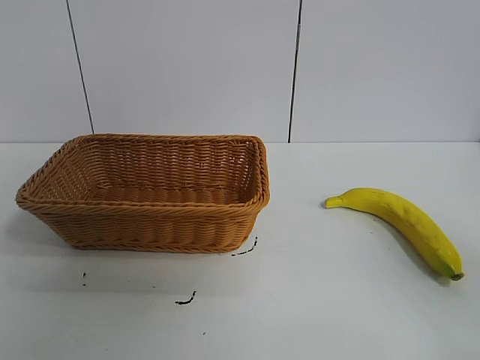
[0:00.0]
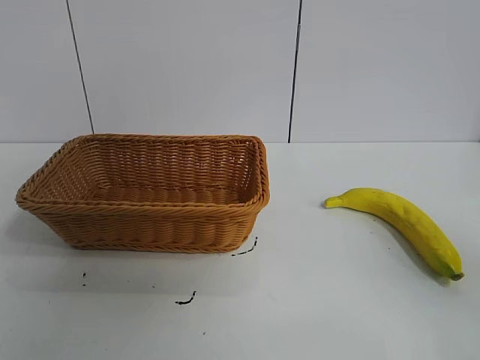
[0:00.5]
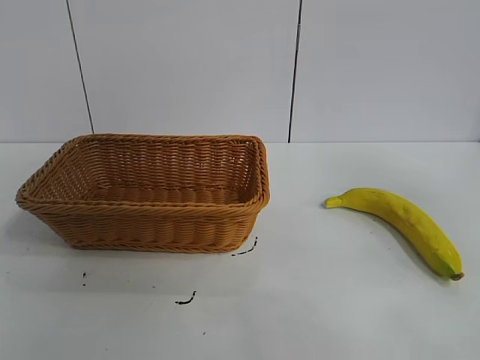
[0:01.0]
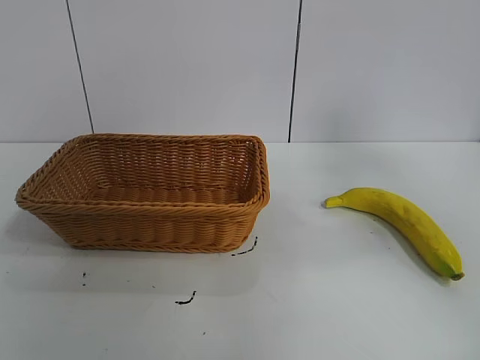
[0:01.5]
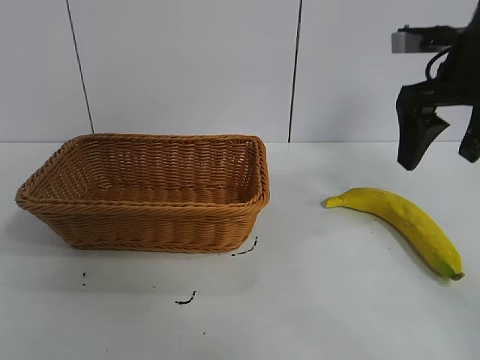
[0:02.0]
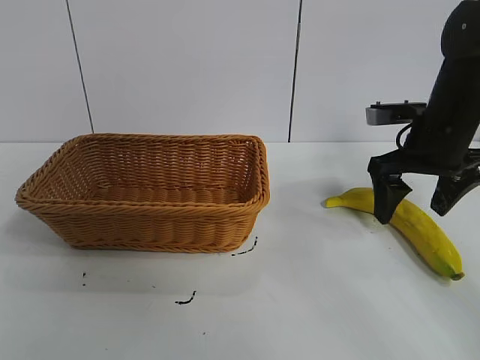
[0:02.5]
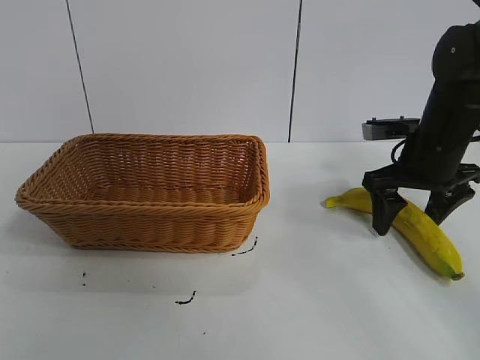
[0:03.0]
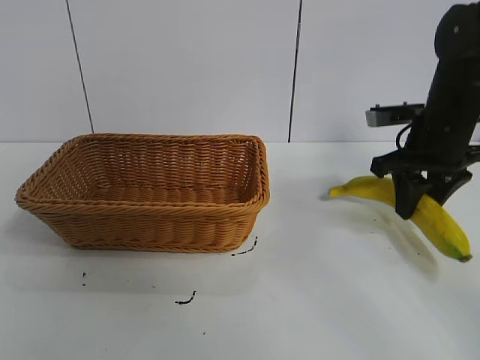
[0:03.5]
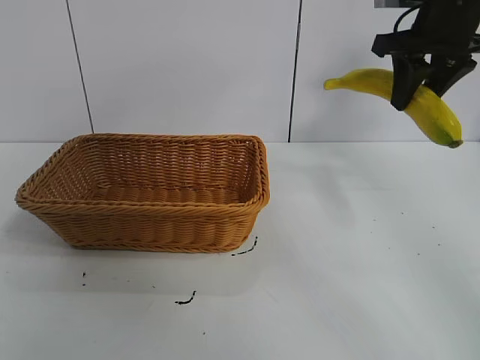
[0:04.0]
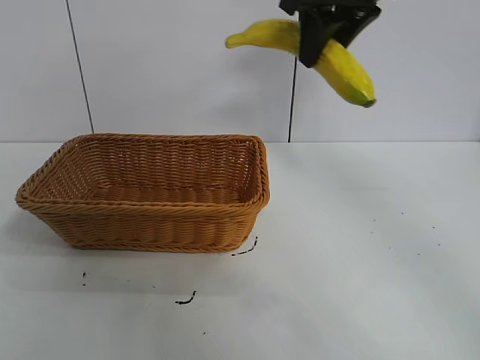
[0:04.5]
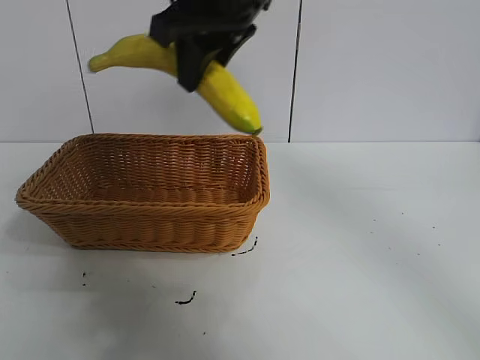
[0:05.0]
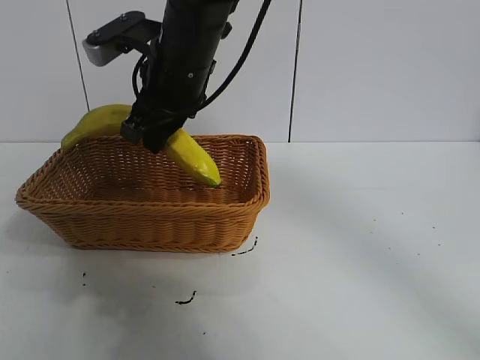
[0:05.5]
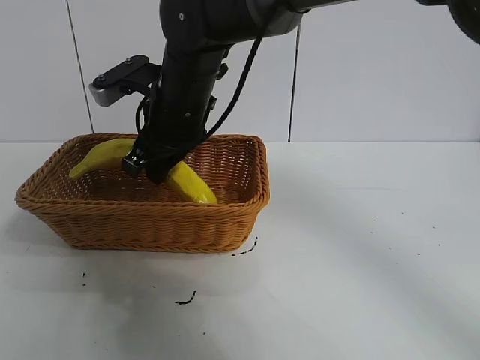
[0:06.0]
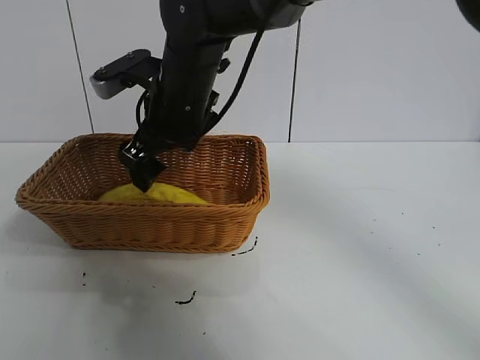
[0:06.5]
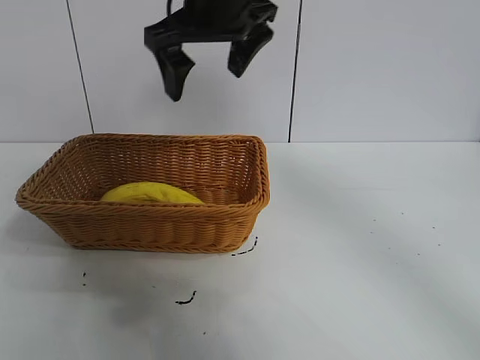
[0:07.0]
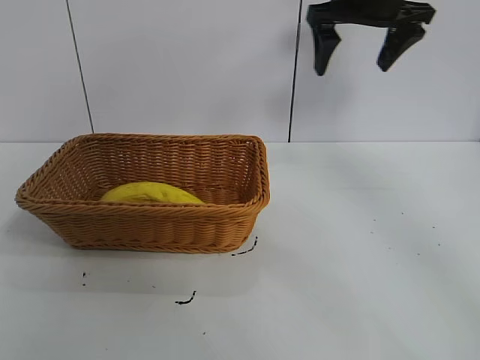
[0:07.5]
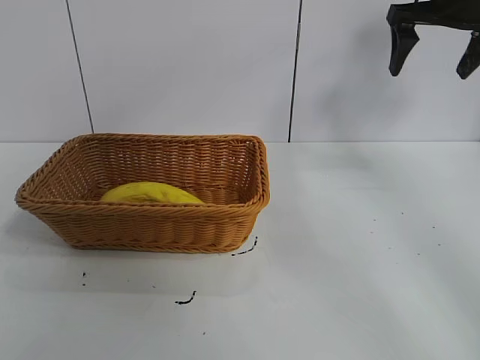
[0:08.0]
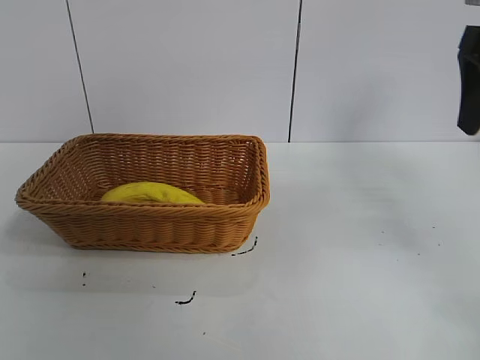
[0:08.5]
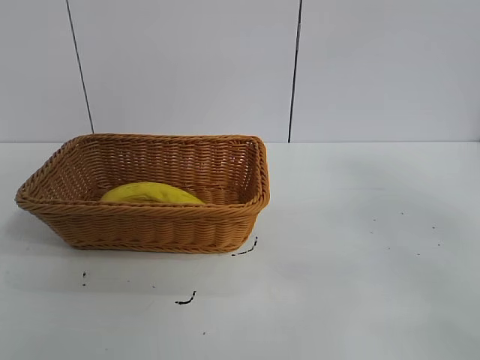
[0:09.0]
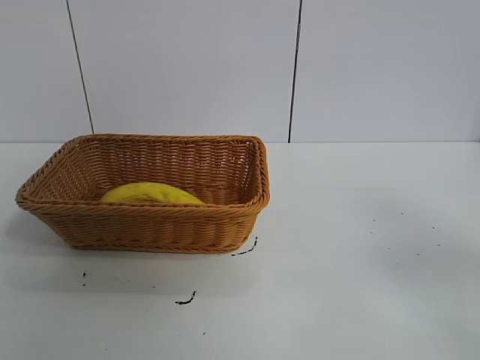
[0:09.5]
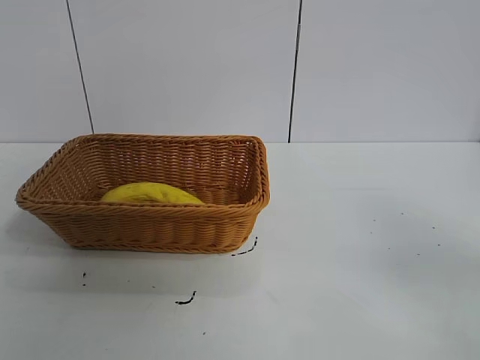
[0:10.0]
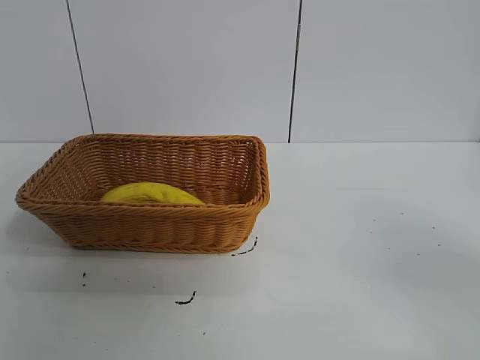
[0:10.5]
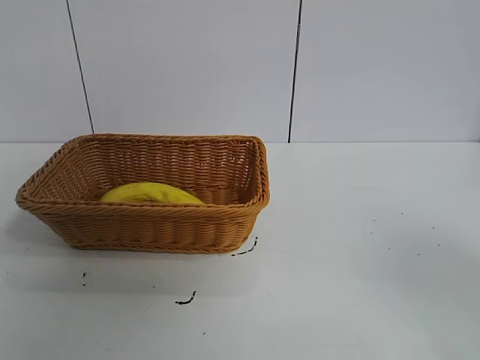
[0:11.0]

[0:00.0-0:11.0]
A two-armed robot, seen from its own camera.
Task of the whole recording: pick up the banana and put it into the basket.
Step, 0:01.0 to 0:03.0: Grasp the banana with right gripper.
Step, 0:03.5 to 0:06.5: Place the banana in the basket with right gripper.
